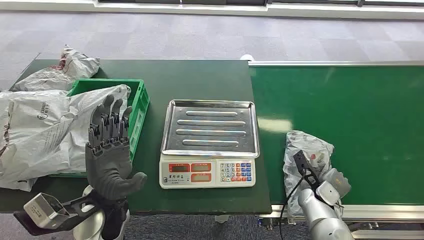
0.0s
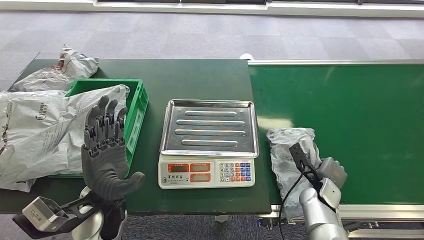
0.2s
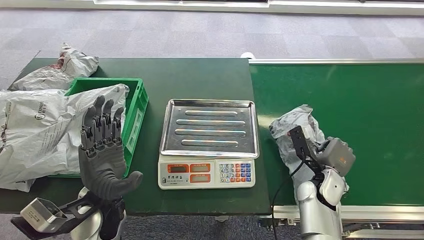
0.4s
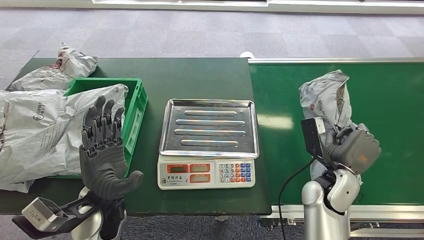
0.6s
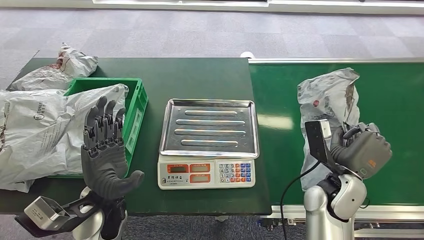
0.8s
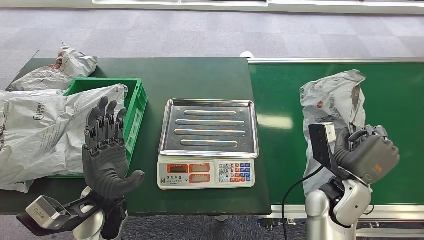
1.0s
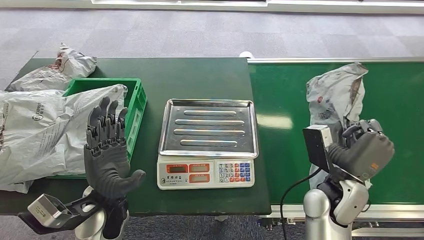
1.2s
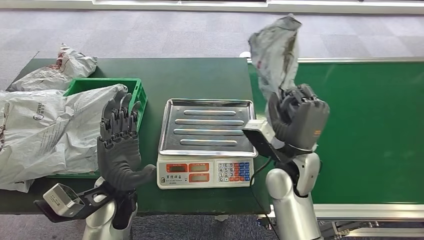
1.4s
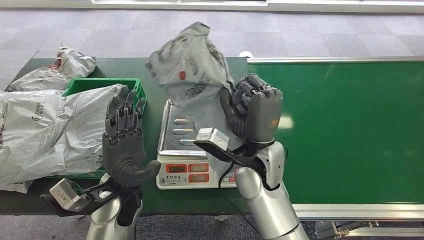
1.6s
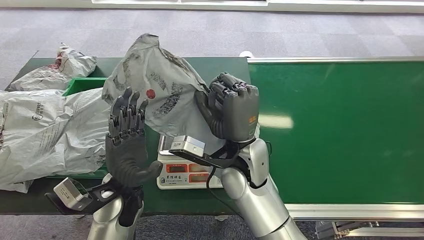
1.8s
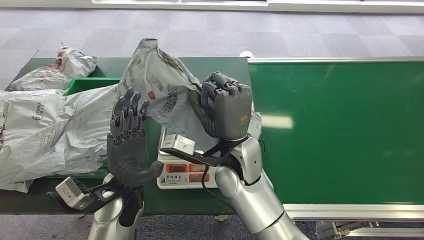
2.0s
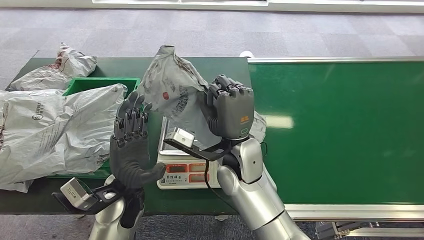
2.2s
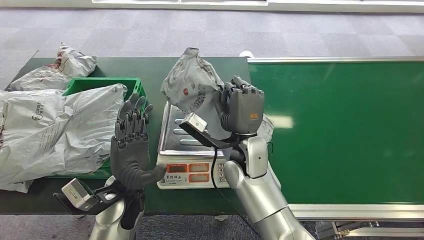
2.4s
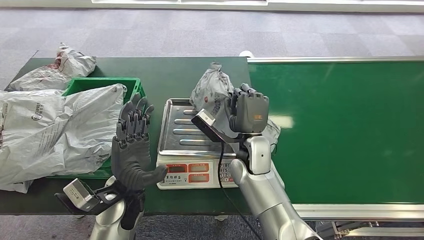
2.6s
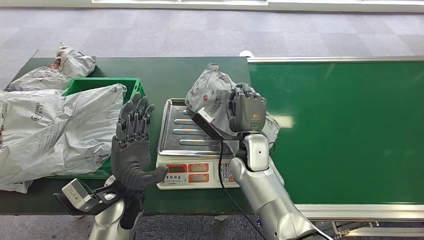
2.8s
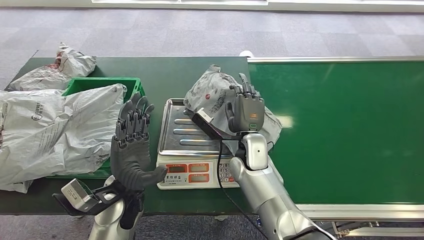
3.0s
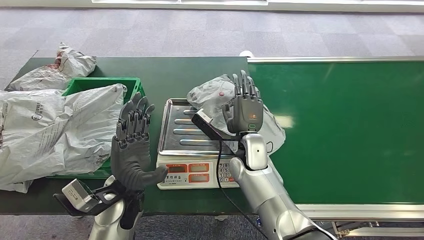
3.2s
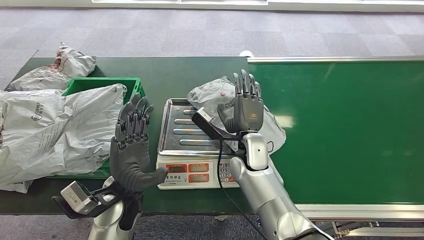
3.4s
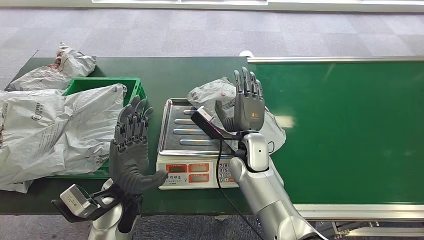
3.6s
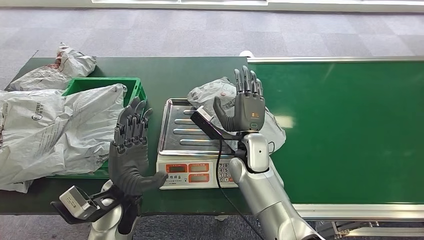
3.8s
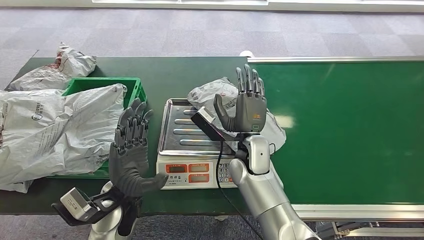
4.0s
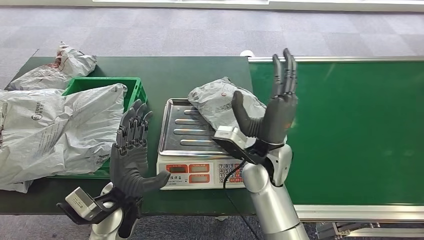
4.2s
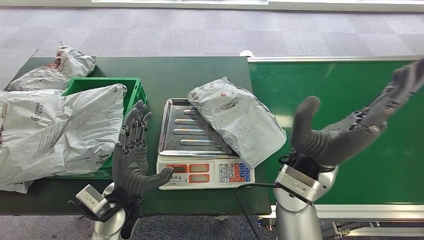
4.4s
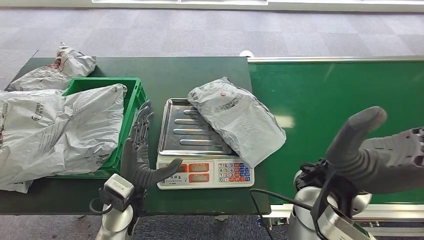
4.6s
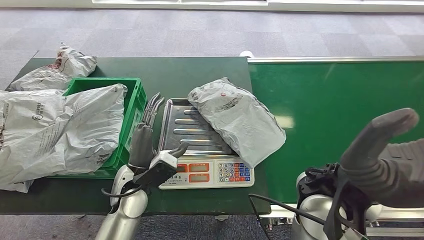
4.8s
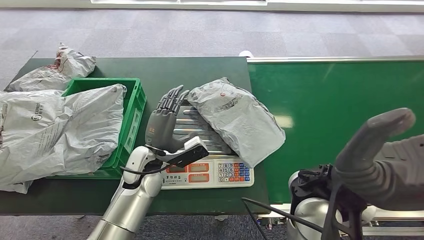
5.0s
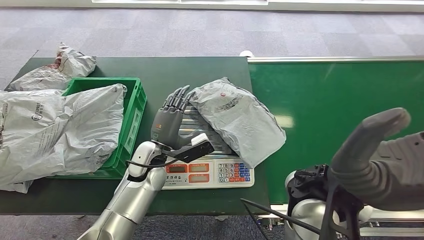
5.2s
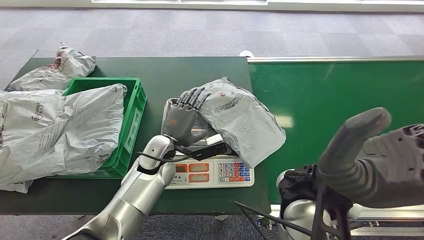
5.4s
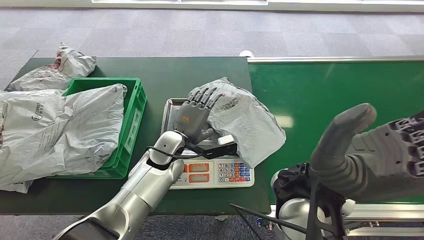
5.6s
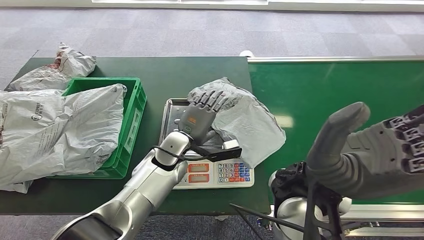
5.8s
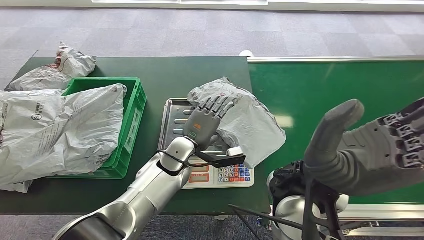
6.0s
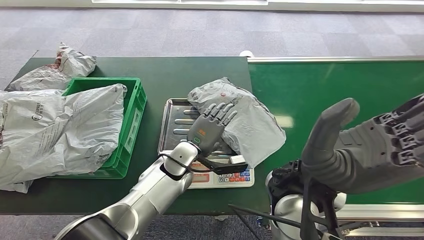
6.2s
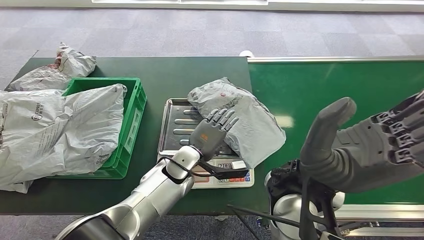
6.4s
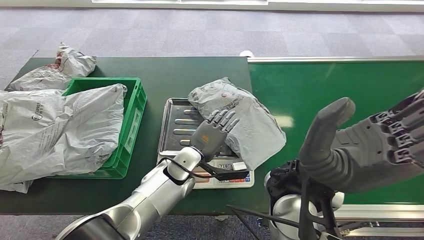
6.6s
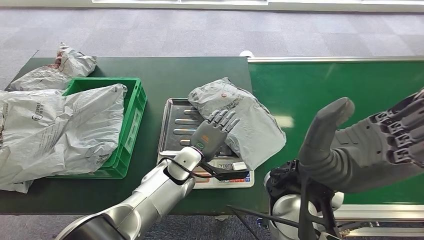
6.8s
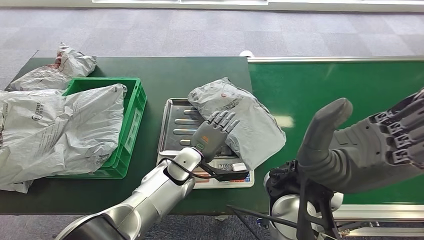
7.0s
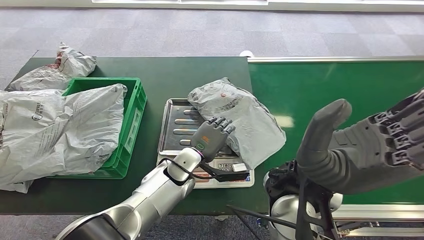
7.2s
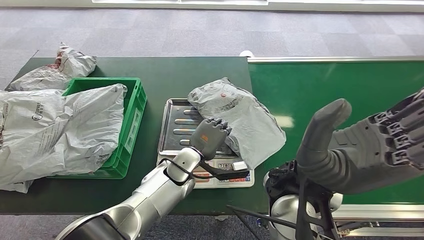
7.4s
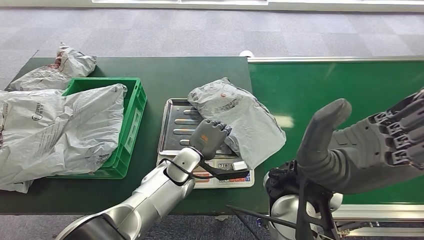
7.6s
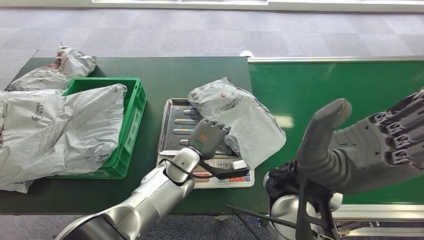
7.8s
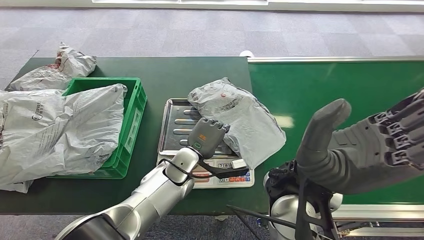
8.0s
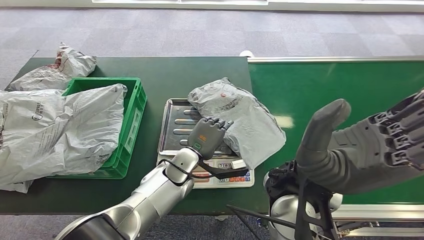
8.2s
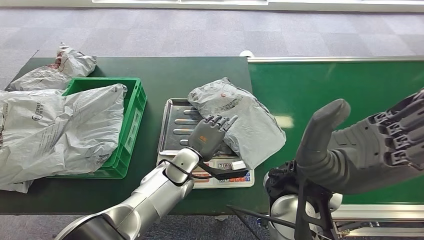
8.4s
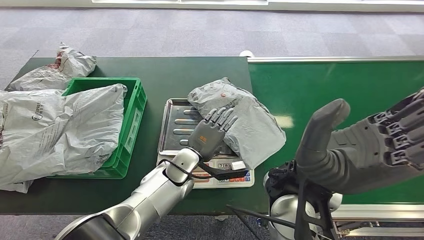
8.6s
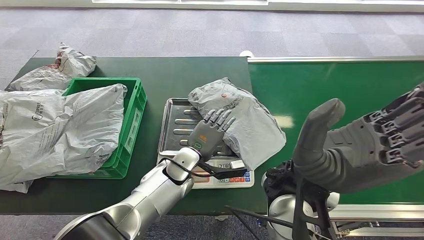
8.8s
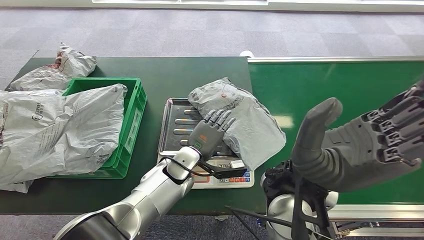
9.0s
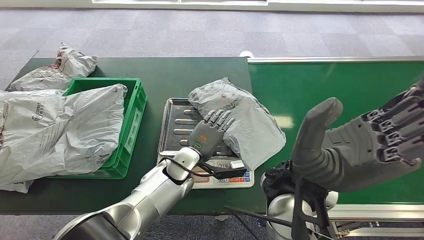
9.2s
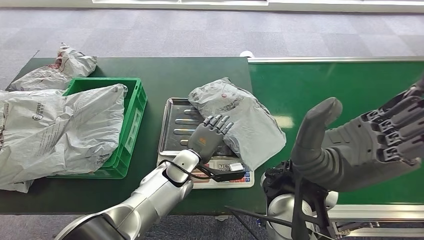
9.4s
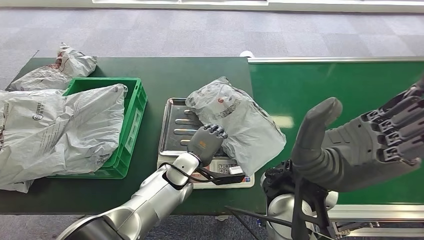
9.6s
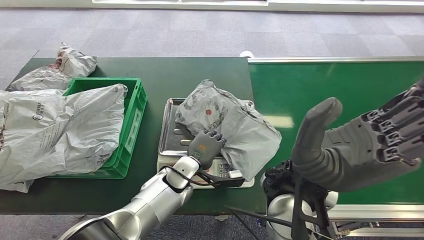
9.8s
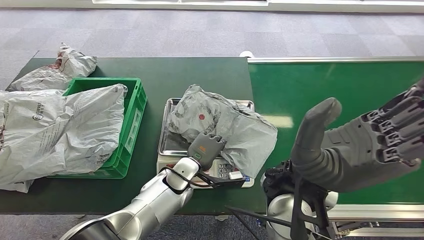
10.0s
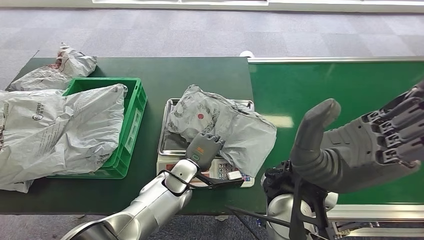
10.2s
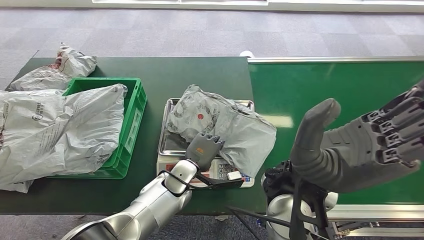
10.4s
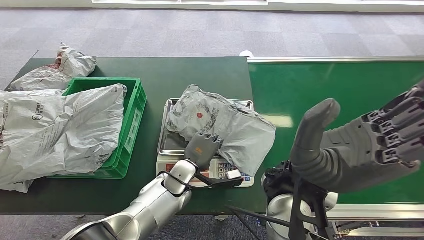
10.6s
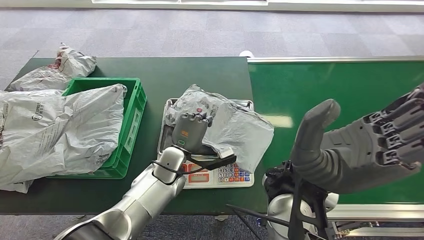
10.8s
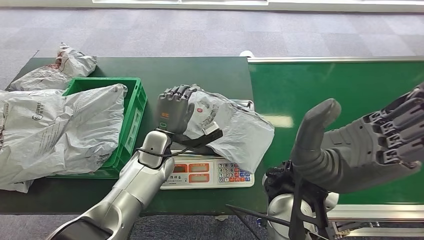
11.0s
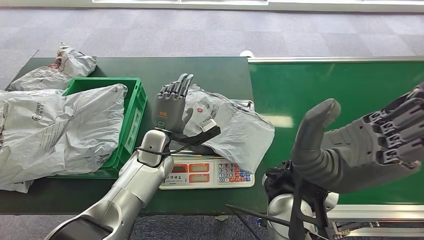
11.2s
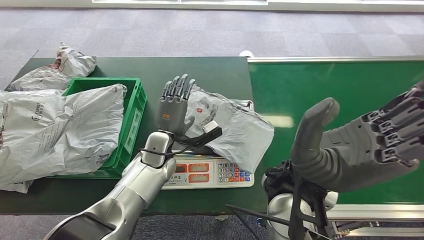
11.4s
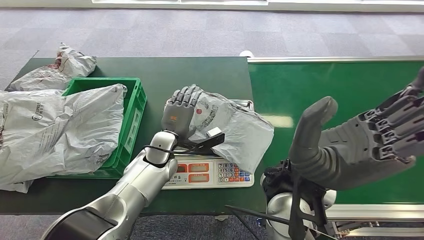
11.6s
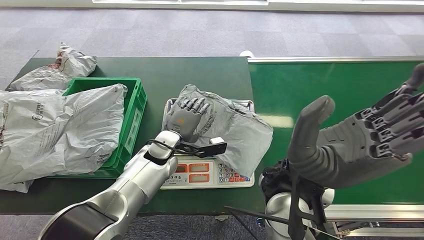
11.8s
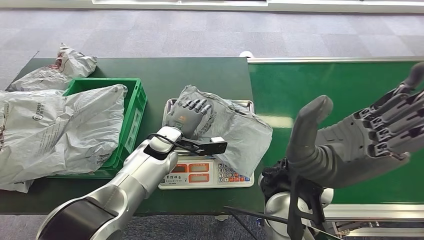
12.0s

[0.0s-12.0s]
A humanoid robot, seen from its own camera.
Task of the whole recording: Weigh the package on the weighing device and place it in the left basket.
Step, 0.0s to 1.4s: Pick up the package from the conveyor belt.
Step, 1.6s to 4.4s: Place the package onto the inbound machine.
1.6s to 3.0s: The right hand is displaced downward by some 10 cm.
3.0s to 4.4s: The right hand goes approximately 15 cm upward, backward and to the right.
4.4s to 6.0s: The left hand heads forward and to the right, covering about 15 cm; the right hand shifts some 5 cm upward.
6.0s to 9.0s: The hands make only small movements.
9.0s to 10.4s: The hands move only a little.
10.4s to 12.0s: The left hand moves forward and upward, about 10 cm.

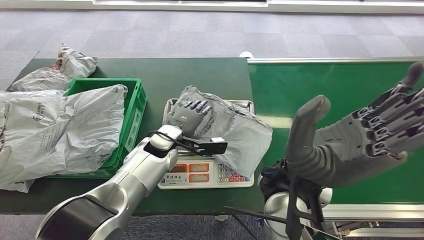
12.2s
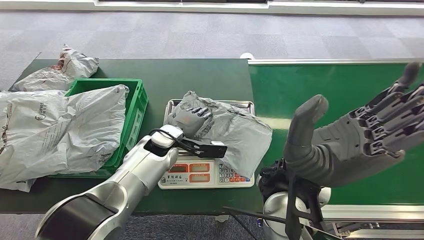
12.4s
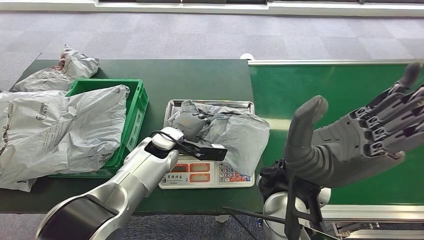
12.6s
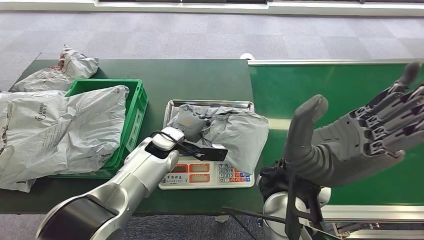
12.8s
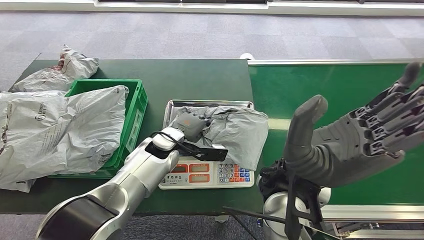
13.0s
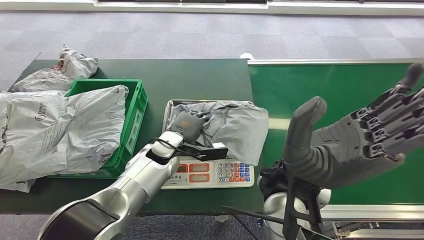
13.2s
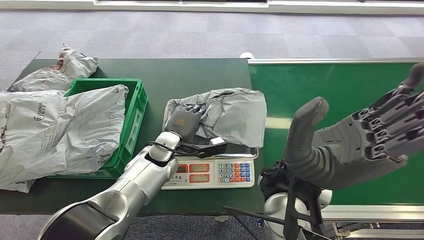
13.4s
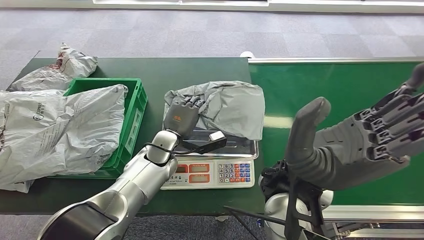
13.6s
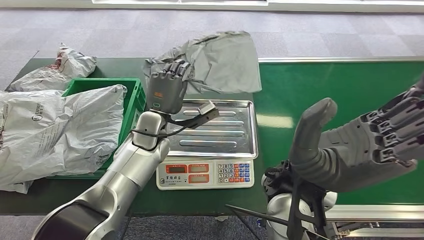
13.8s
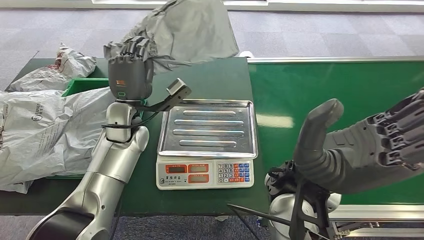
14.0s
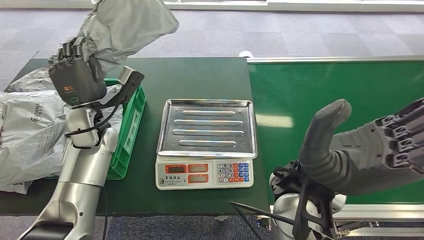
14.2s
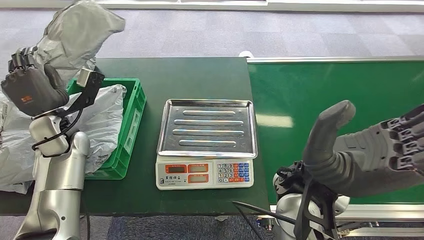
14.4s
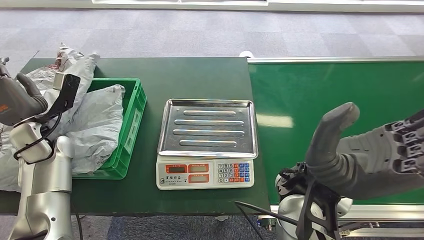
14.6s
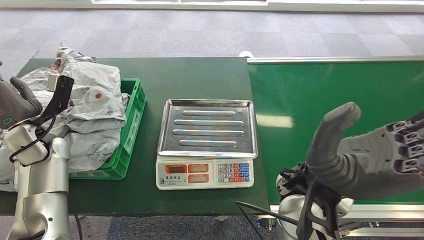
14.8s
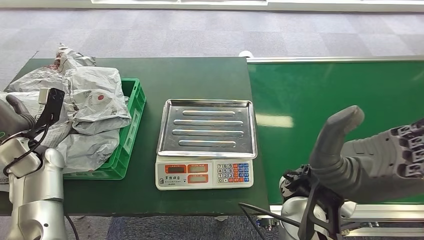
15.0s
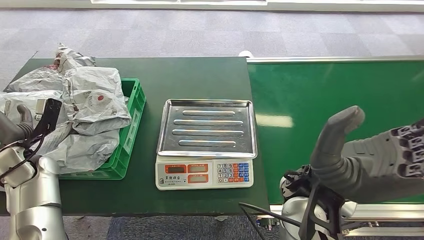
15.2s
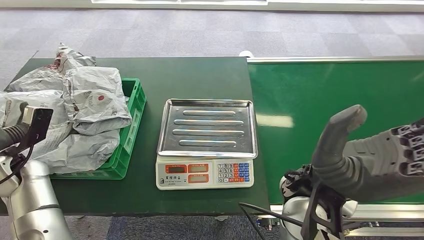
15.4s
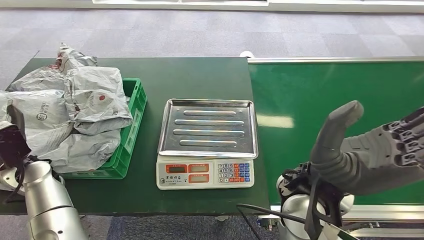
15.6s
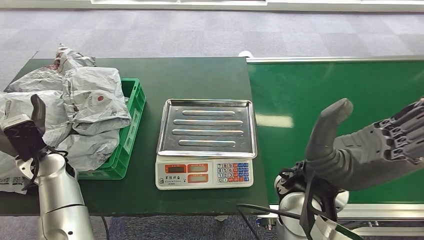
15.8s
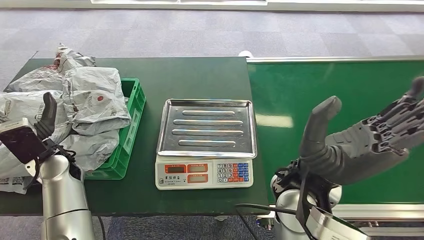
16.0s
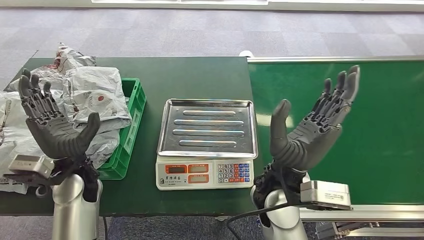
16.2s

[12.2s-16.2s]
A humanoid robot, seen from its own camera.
Task of the whole recording: Weigh the package on the weighing device and place it in the left basket.
Step, 12.2s to 14.2s: Pick up the package from the inbound machine.
Step, 14.4s to 16.2s: Place the package into the parcel locker.
